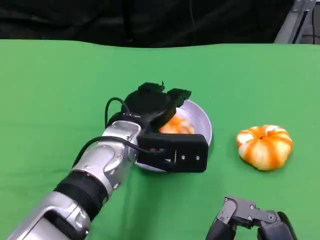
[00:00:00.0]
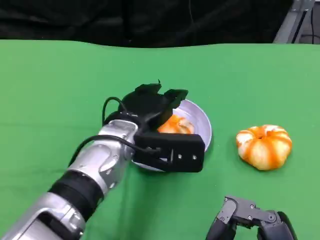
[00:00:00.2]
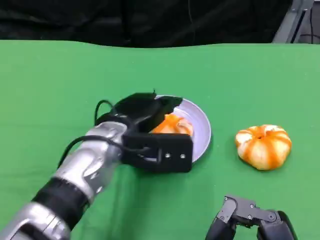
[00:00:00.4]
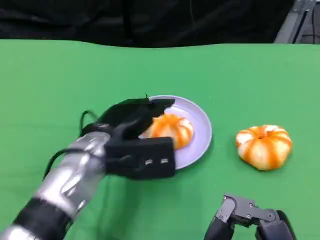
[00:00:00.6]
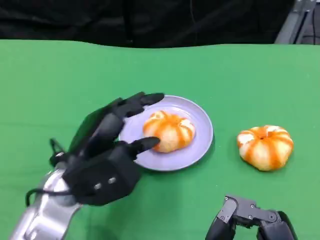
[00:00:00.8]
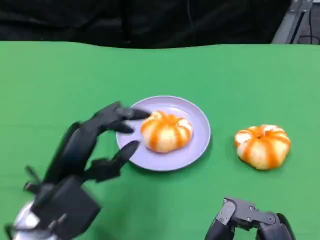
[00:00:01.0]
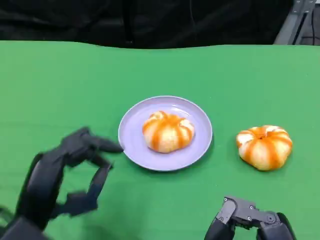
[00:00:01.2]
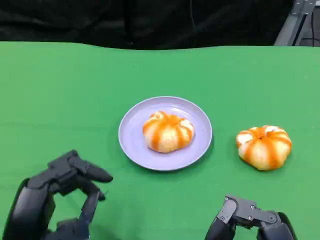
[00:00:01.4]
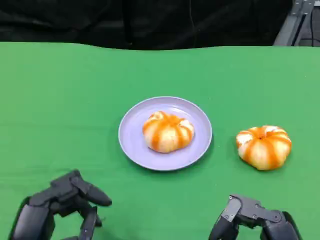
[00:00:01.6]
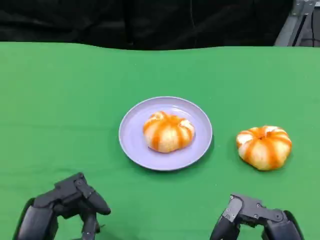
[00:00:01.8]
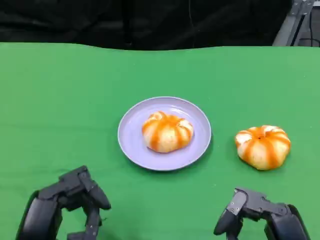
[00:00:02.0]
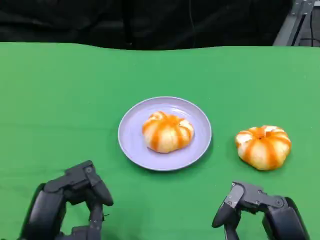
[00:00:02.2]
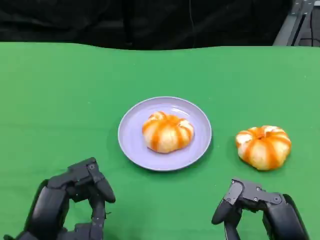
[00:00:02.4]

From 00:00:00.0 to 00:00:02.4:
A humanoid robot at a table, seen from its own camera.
Task of the whole recording: Grasp the bread from the table and place it into the plate.
From 00:00:00.0 to 00:00:01.2: The left hand heads backward and to the left, covering approximately 20 cm.
From 00:00:01.2 to 00:00:02.4: The hands make only small movements.

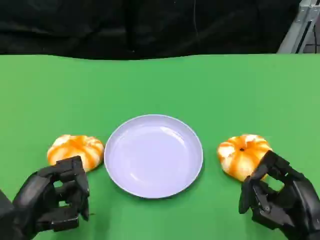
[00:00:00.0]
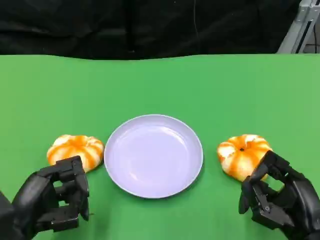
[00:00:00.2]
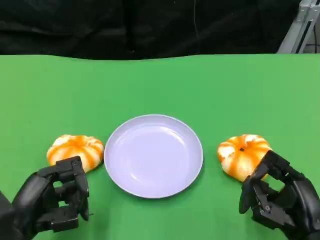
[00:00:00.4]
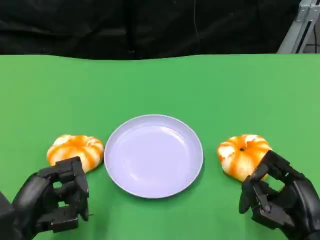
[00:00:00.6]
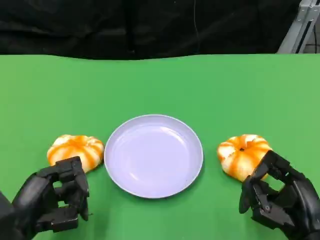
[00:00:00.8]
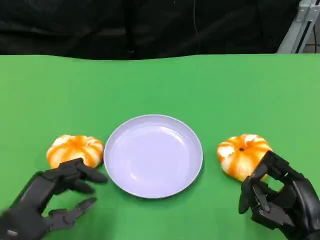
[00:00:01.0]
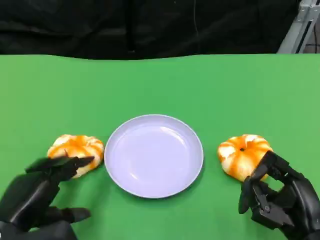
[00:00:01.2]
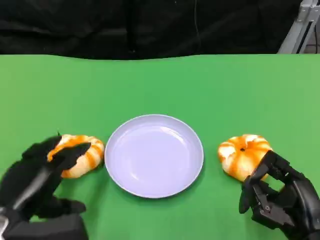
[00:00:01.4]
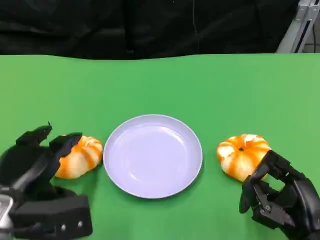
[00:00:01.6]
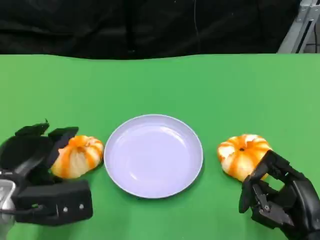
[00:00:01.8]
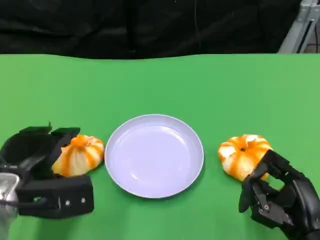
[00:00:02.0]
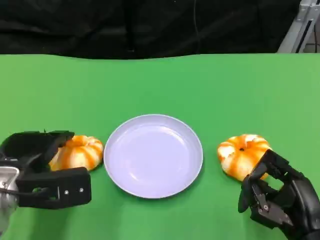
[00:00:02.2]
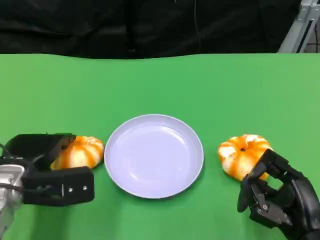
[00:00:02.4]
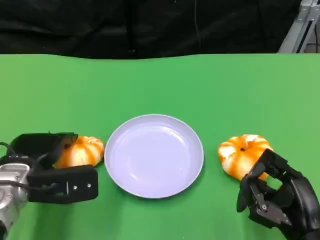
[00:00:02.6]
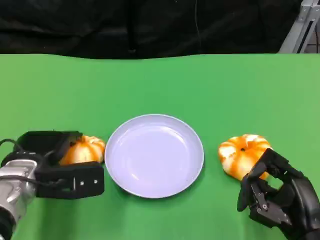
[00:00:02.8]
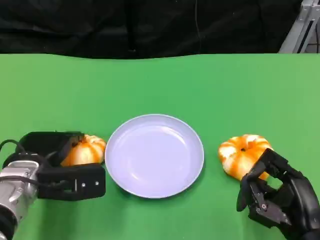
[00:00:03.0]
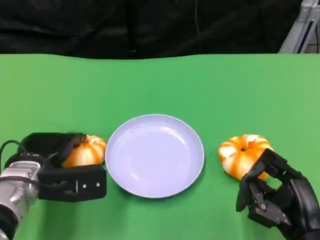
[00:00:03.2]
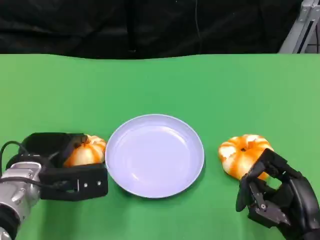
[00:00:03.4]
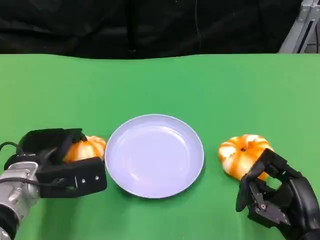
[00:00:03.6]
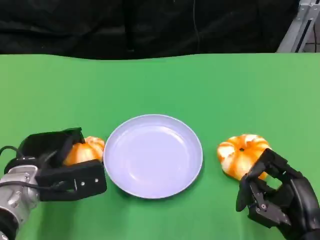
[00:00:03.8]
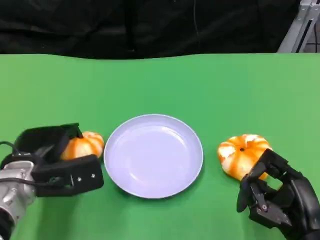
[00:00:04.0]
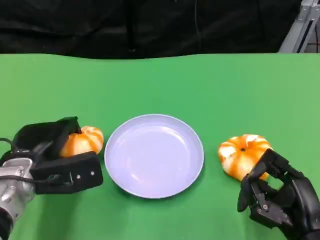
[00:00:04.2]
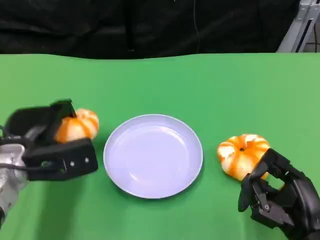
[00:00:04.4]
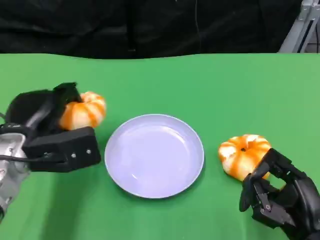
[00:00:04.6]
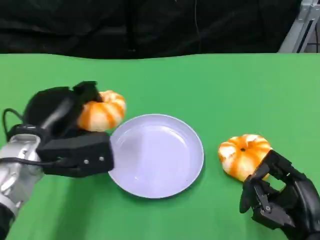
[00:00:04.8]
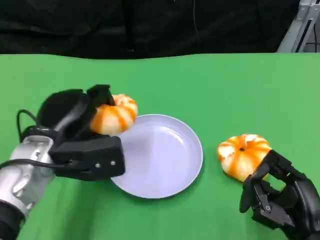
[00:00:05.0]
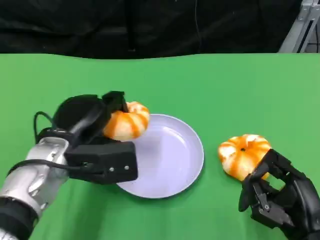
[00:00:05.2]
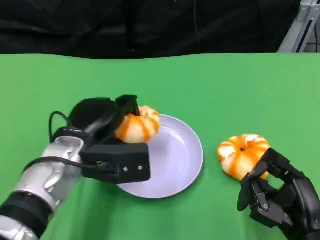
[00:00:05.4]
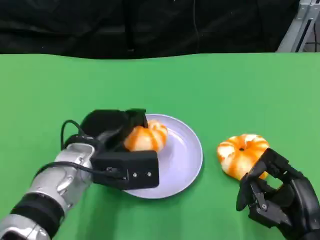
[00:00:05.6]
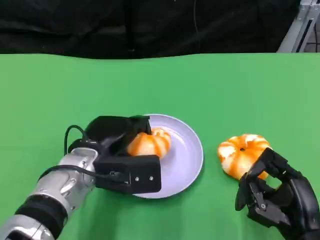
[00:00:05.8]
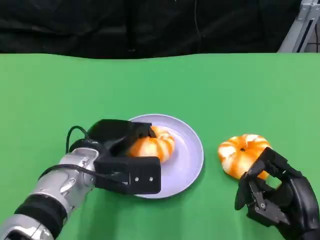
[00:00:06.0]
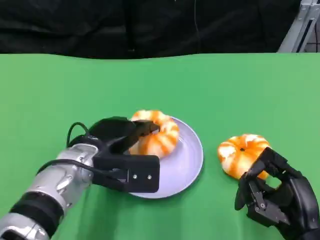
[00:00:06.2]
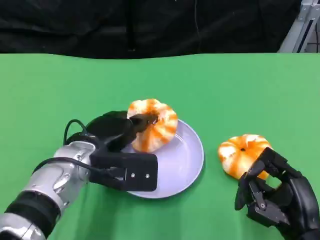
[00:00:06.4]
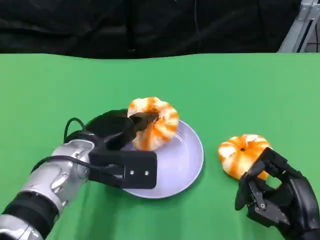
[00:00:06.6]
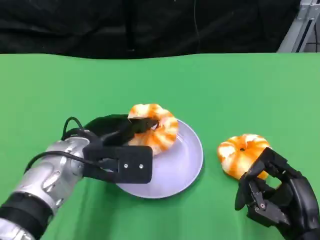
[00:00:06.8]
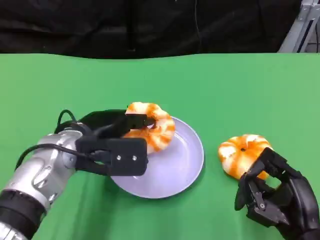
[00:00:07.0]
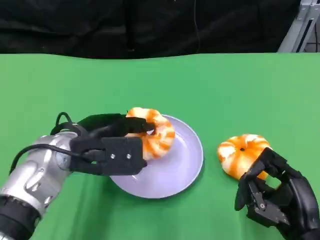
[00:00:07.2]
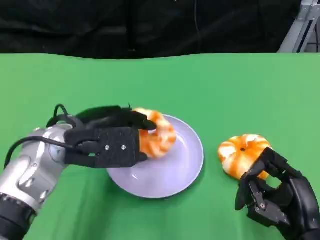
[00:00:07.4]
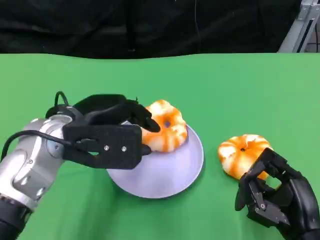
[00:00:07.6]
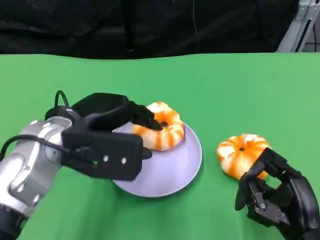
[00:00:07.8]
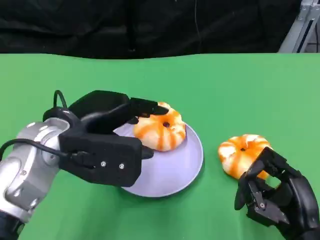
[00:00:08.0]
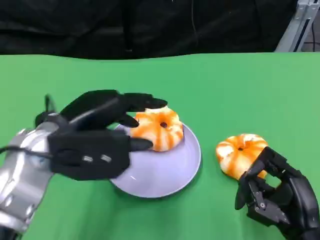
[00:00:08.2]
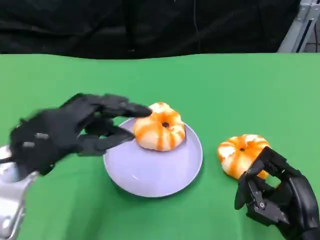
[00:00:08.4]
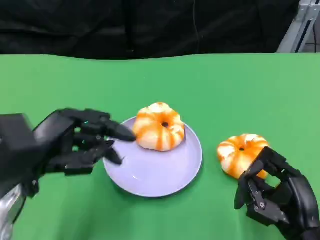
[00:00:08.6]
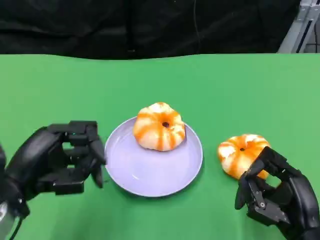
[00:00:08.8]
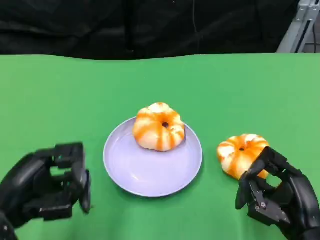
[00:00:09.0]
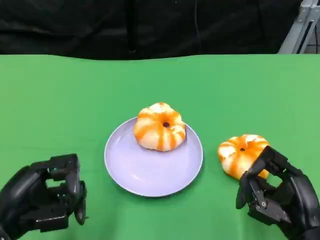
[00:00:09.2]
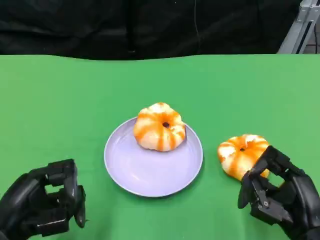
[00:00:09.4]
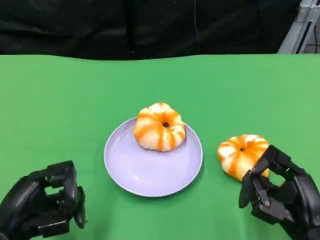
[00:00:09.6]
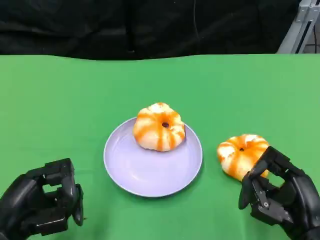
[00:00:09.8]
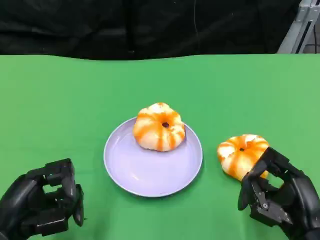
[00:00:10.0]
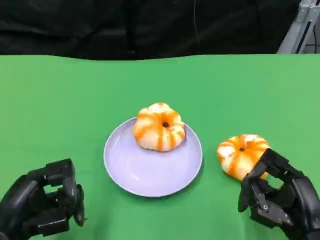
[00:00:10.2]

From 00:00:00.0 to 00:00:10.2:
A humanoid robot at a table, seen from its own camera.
Task of the whole recording: Grasp the bread from the table and place it into the plate.
From 00:00:01.4 to 00:00:03.0: The left hand goes approximately 10 cm forward.
From 00:00:03.0 to 00:00:04.4: The hands stay close to where they were, moving slightly.
From 00:00:04.4 to 00:00:05.8: The left hand goes about 10 cm to the right.
From 00:00:05.8 to 00:00:07.2: The left hand heads upward, covering roughly 5 cm.
From 00:00:07.2 to 00:00:08.8: The left hand moves backward and to the left, roughly 10 cm.
From 00:00:08.8 to 00:00:10.2: The left hand goes roughly 5 cm downward.

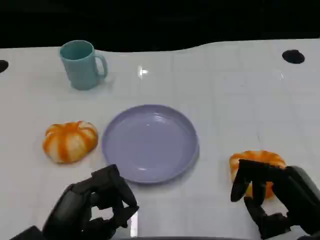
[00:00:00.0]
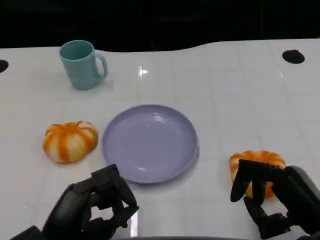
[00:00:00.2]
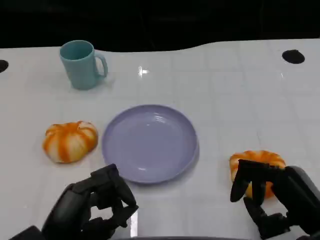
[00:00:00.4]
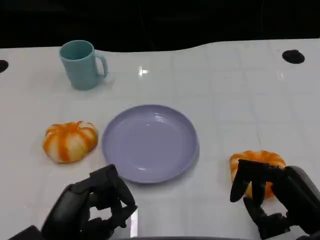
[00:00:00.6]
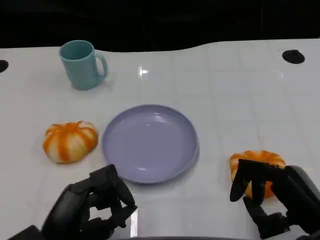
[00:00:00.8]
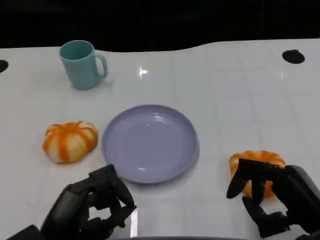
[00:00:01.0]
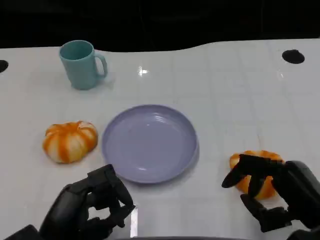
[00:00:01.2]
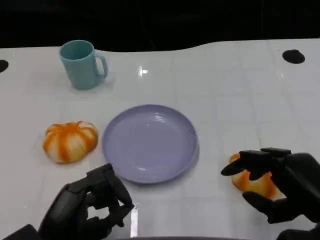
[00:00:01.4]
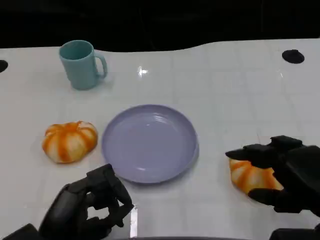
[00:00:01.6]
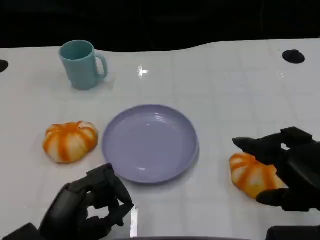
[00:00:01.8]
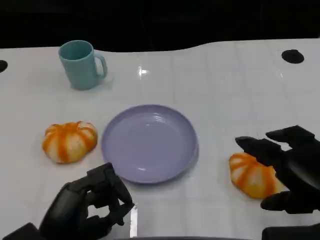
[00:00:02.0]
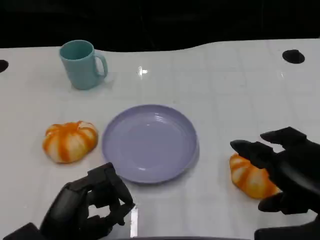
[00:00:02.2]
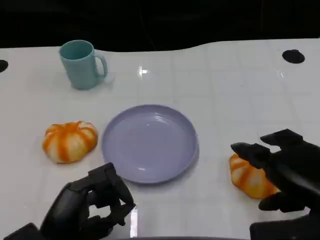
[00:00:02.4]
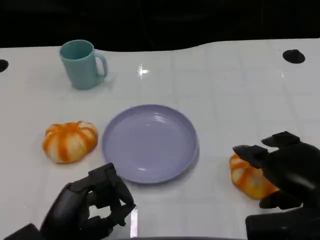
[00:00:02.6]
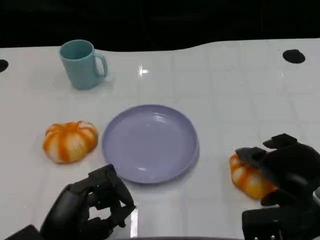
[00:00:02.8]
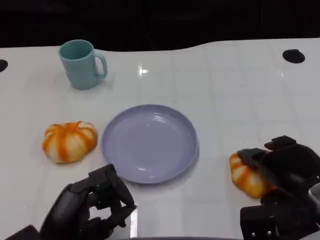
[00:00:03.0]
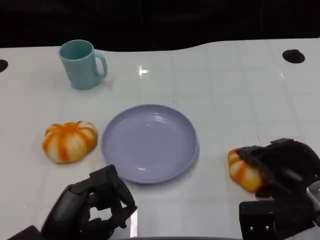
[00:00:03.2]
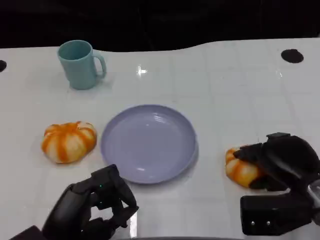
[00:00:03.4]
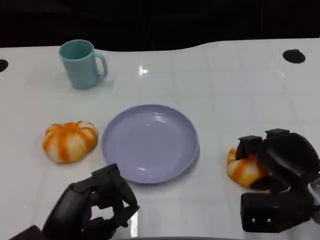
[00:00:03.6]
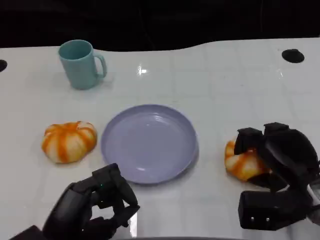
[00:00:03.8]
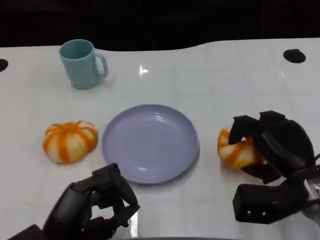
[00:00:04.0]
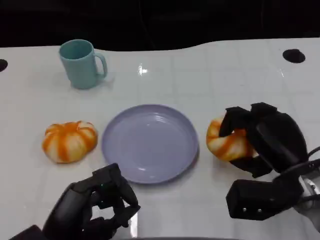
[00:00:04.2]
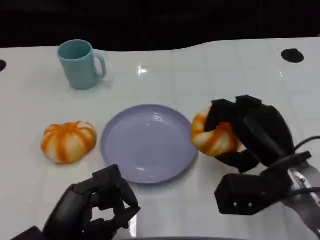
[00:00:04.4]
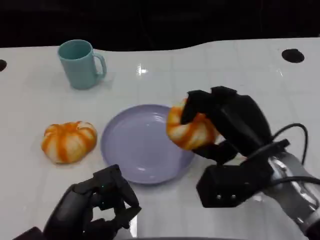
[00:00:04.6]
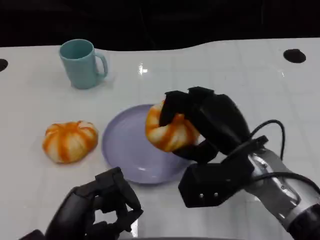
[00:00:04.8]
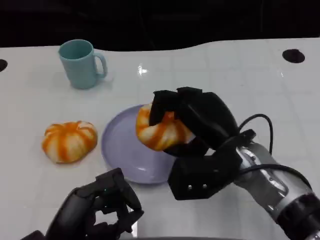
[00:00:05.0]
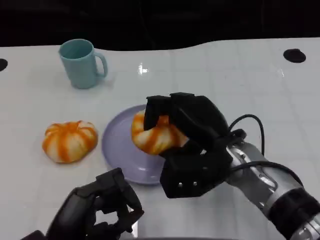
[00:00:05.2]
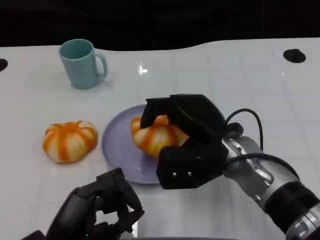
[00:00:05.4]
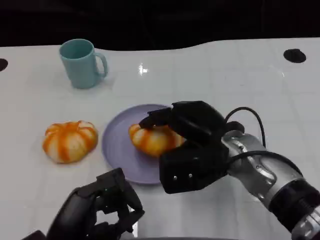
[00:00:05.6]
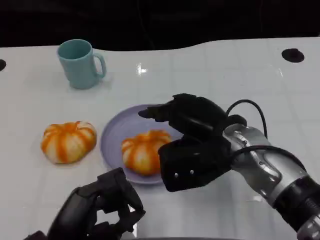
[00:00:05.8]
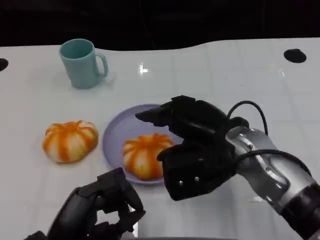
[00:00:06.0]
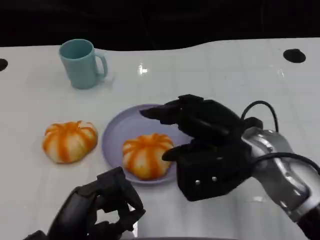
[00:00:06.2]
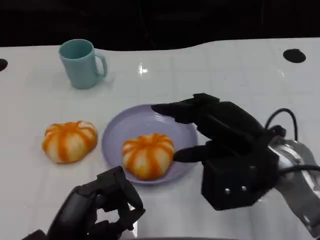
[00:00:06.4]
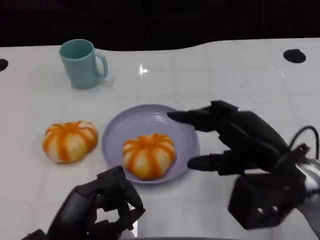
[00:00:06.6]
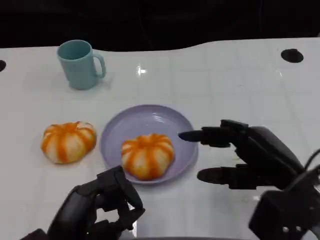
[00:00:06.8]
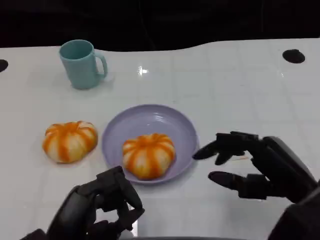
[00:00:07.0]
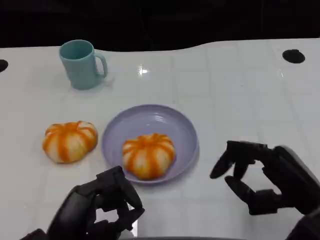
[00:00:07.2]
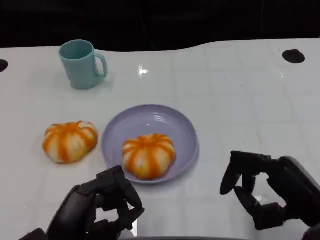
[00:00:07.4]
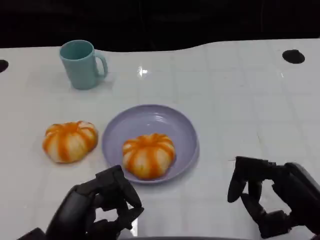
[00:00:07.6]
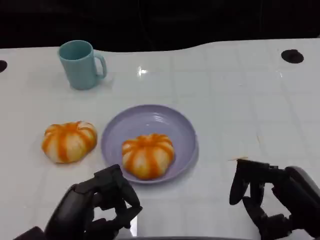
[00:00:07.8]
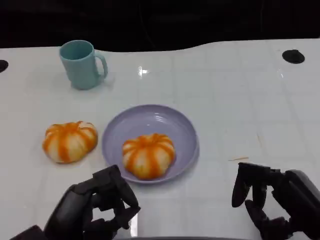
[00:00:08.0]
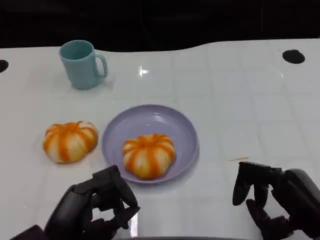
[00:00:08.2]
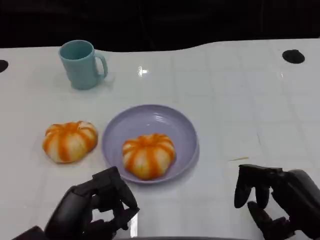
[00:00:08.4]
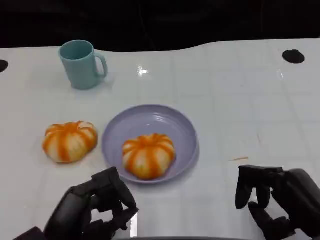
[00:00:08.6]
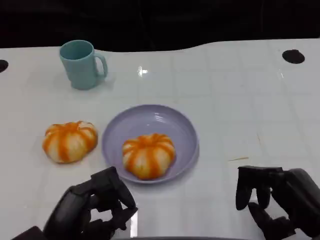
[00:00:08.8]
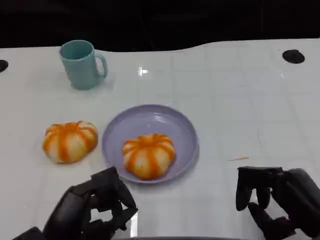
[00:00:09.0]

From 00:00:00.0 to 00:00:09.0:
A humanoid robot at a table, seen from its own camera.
Task of the whole recording: Grasp the bread from the table and place it into the plate.
From 00:00:00.0 to 00:00:01.6: The right hand shifts by approximately 5 cm.
From 00:00:01.6 to 00:00:03.0: The right hand is displaced forward by some 5 cm.
From 00:00:03.0 to 00:00:04.4: The right hand changes place by some 5 cm.
From 00:00:04.4 to 00:00:06.0: The right hand travels to the left by roughly 5 cm.
From 00:00:06.0 to 00:00:07.6: The right hand moves to the right and backward, approximately 15 cm.
From 00:00:07.6 to 00:00:09.0: The hands move only a little.
